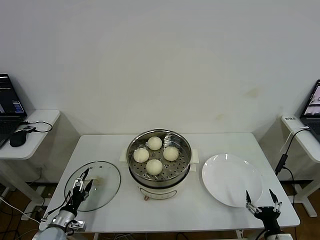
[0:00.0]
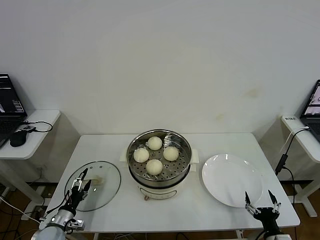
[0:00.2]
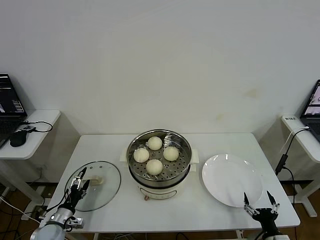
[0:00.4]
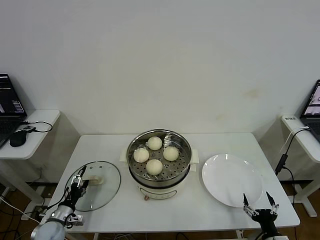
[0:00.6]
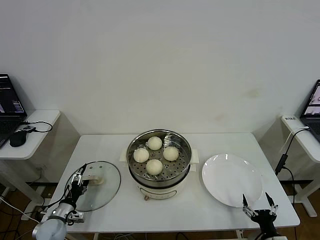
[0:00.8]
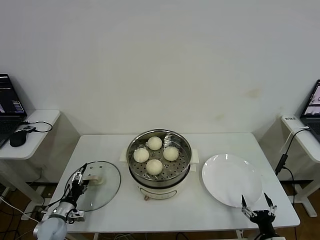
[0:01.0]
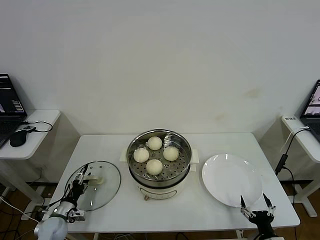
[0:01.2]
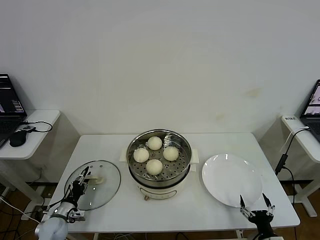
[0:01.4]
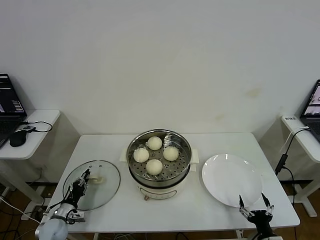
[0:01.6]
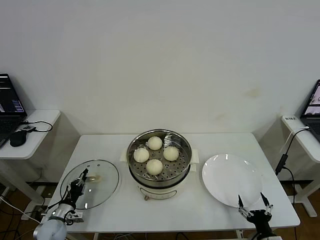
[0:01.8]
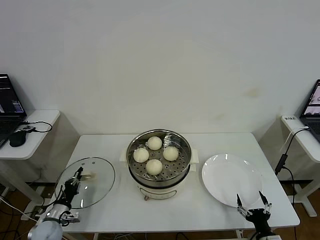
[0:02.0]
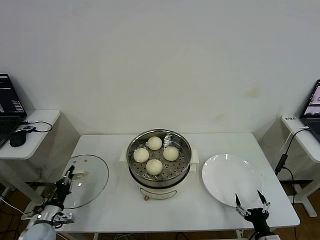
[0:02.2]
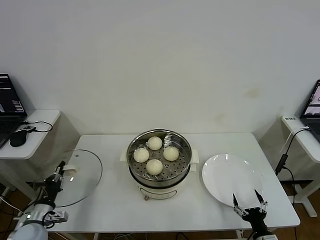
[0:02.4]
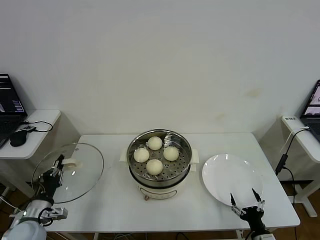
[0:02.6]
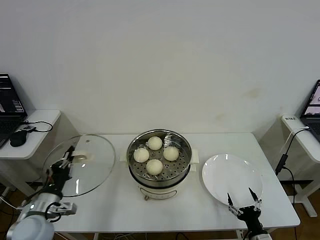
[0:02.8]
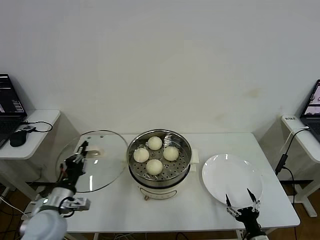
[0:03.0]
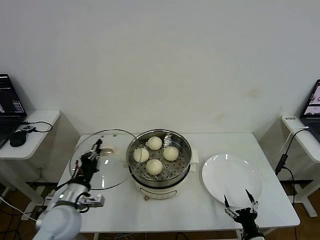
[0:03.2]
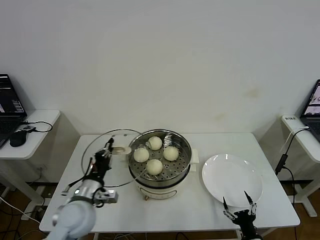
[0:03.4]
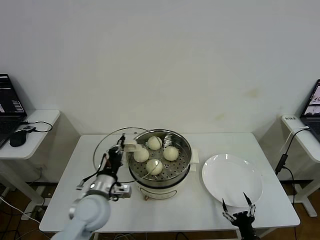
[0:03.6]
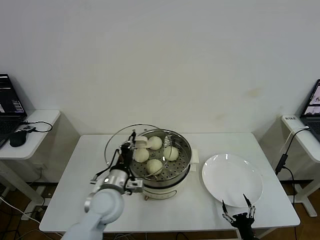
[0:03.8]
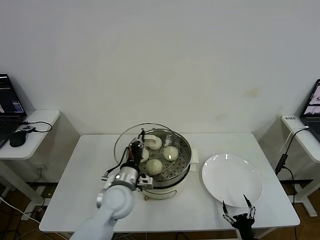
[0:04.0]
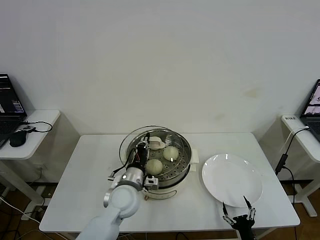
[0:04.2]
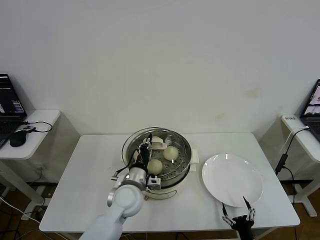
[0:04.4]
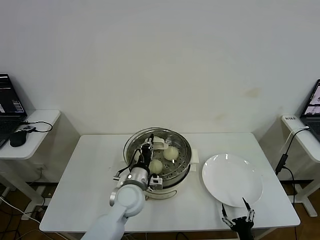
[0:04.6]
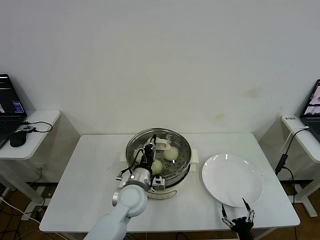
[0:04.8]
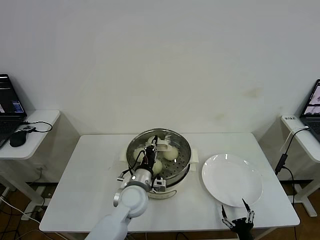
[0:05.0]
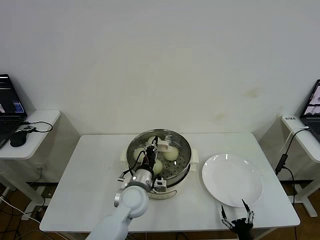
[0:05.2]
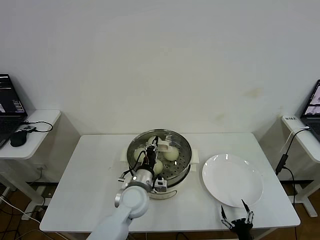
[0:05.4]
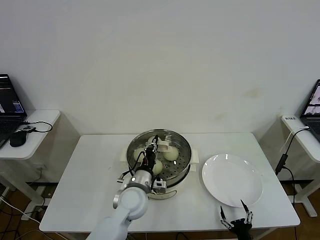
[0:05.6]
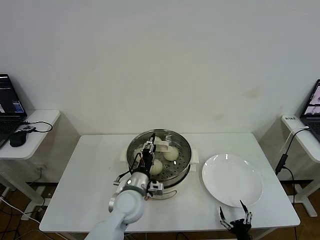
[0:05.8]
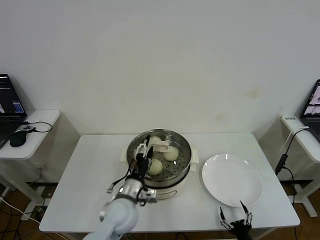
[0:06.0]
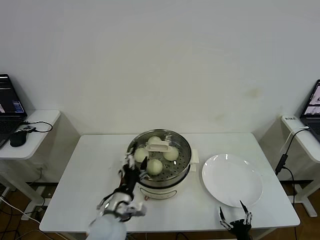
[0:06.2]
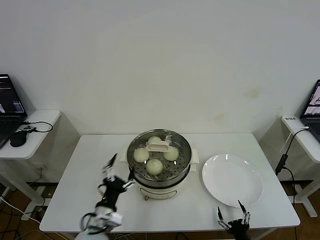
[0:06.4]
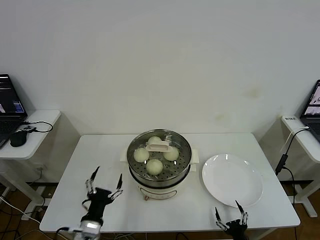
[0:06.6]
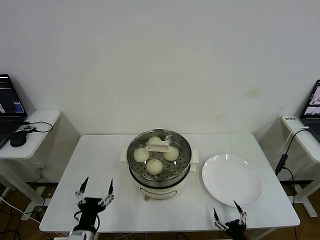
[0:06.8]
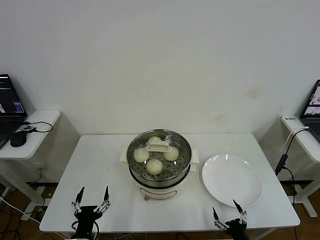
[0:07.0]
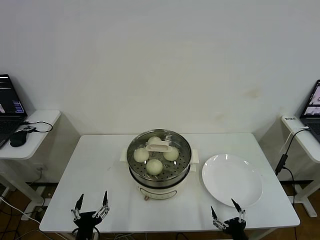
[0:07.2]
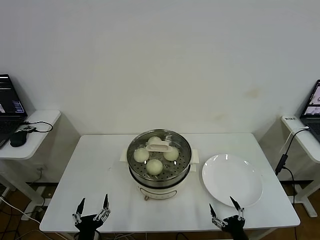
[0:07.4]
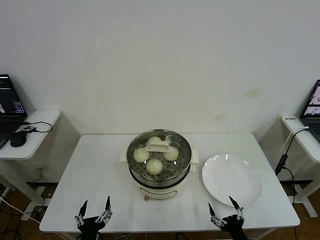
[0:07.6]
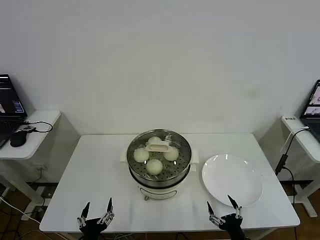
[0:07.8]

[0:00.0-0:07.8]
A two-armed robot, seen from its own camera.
Step, 0:02.0 to 0:05.8: Place the pot lid on the steamer with left gripper.
0:00.0 to 0:01.6: The left gripper closes up.
0:01.6 to 0:03.2: The left gripper moves upward and to the right, about 25 cm.
0:03.2 to 0:04.6: The left gripper moves to the right and forward, some 20 cm.
0:04.6 to 0:06.2: The left gripper moves backward, roughly 10 cm, and opens its fingers.
0:06.2 to 0:07.8: The right gripper shifts some 5 cm upward. The left gripper travels backward, to the left and downward by approximately 20 cm.

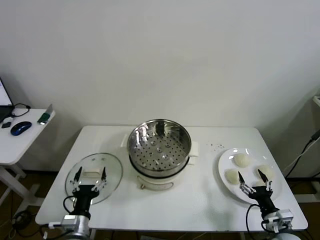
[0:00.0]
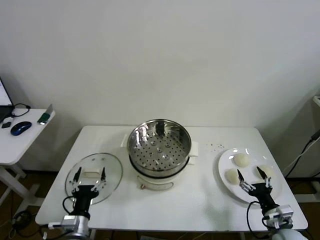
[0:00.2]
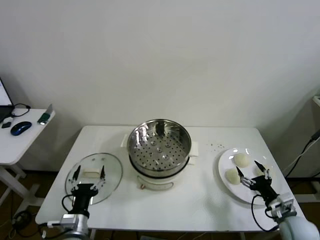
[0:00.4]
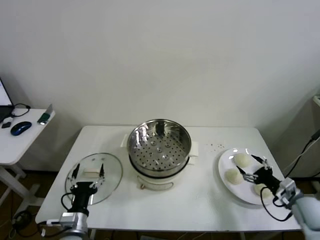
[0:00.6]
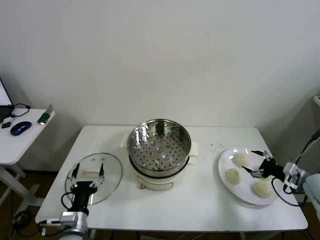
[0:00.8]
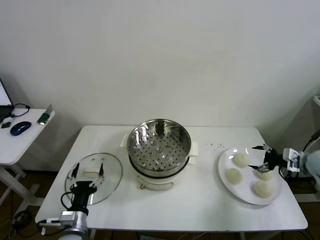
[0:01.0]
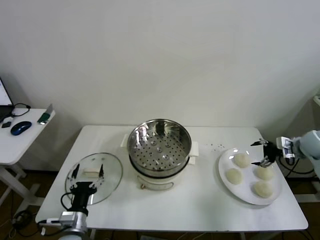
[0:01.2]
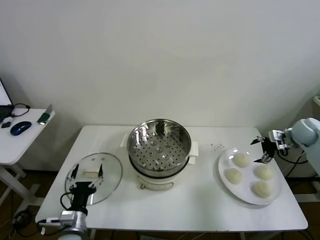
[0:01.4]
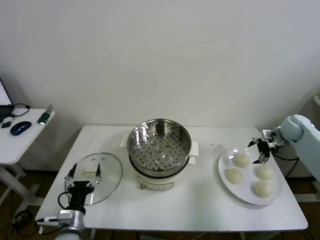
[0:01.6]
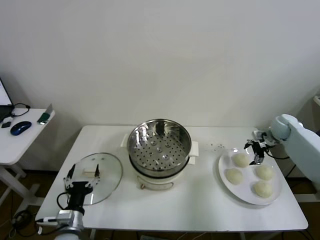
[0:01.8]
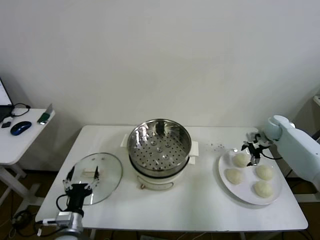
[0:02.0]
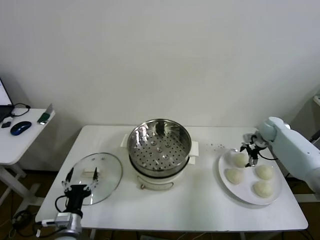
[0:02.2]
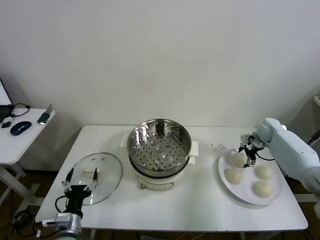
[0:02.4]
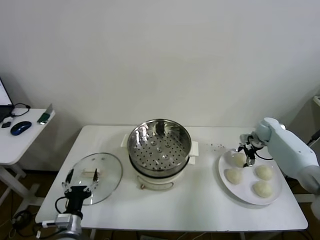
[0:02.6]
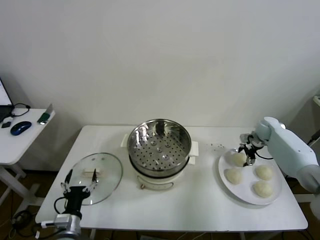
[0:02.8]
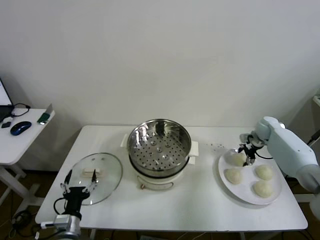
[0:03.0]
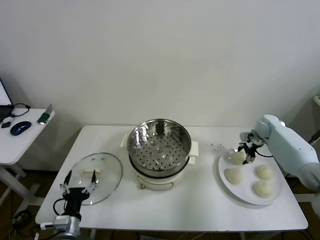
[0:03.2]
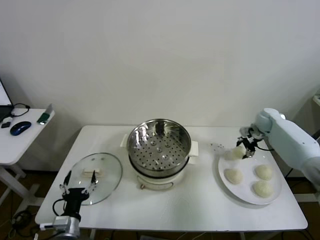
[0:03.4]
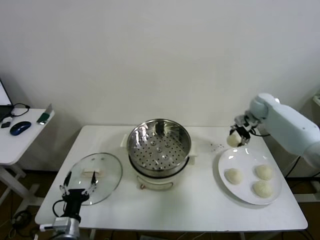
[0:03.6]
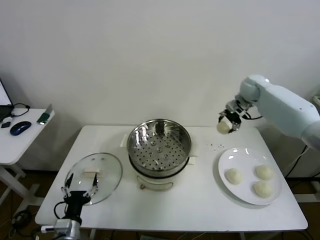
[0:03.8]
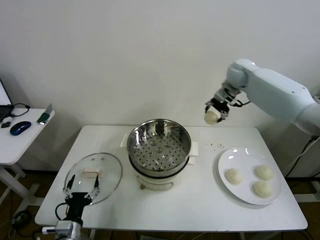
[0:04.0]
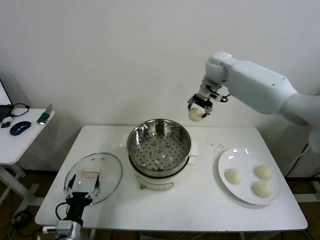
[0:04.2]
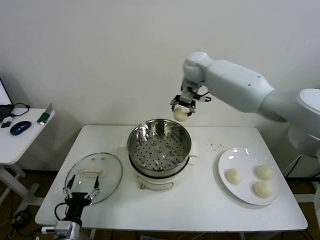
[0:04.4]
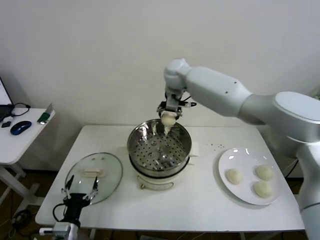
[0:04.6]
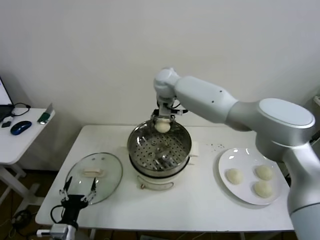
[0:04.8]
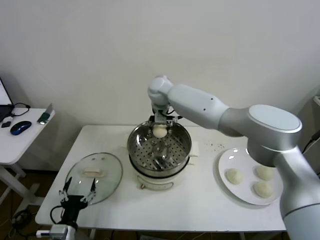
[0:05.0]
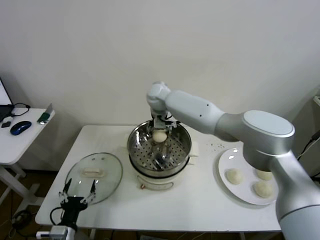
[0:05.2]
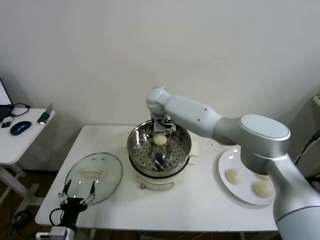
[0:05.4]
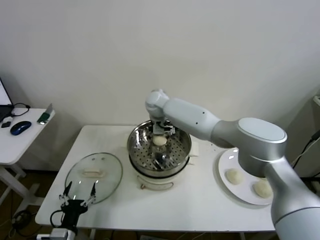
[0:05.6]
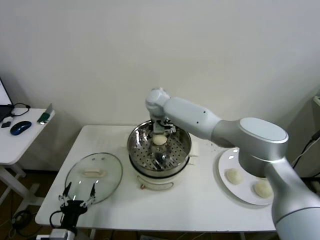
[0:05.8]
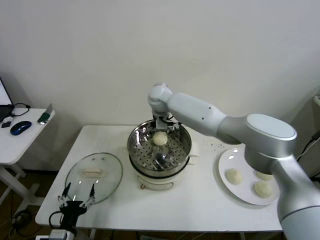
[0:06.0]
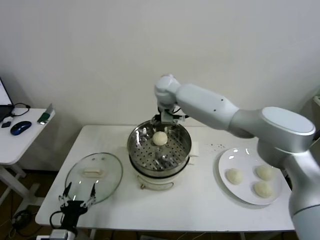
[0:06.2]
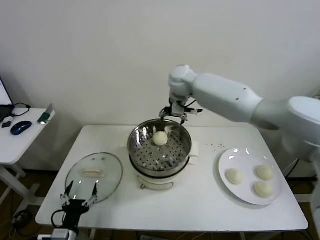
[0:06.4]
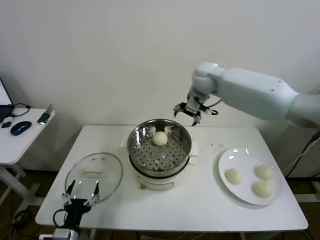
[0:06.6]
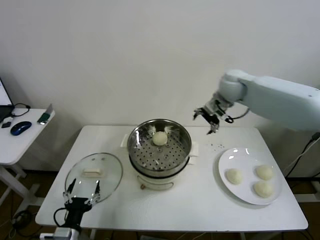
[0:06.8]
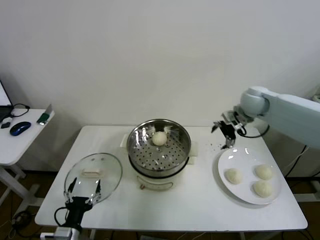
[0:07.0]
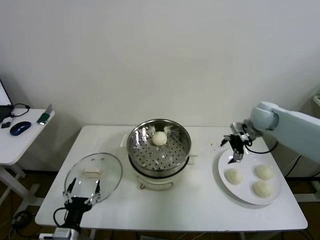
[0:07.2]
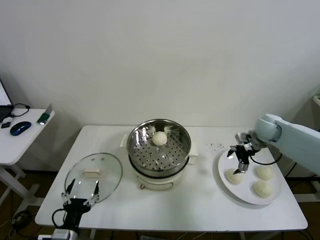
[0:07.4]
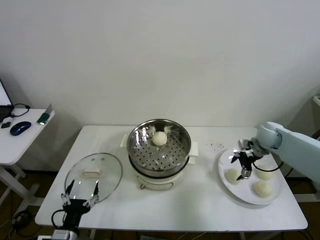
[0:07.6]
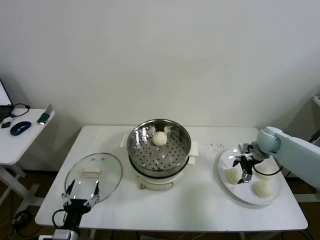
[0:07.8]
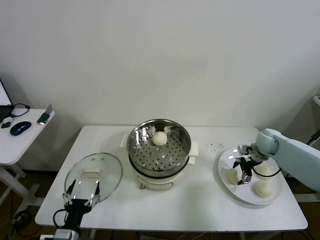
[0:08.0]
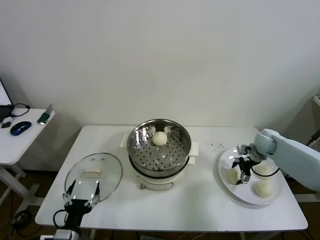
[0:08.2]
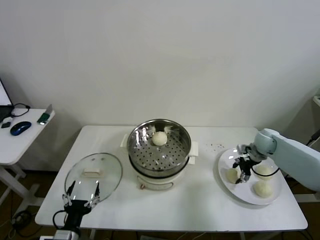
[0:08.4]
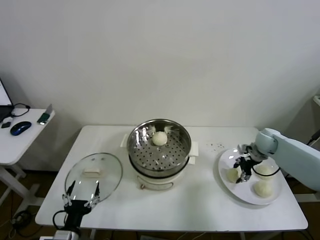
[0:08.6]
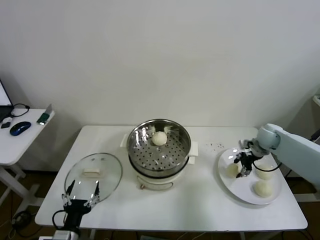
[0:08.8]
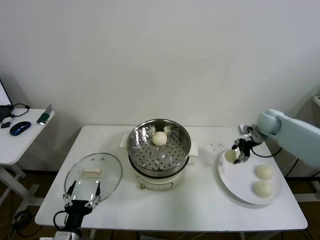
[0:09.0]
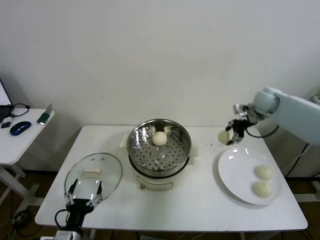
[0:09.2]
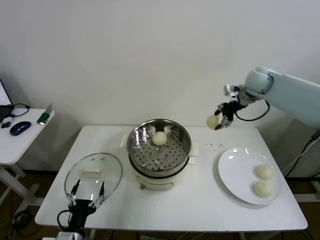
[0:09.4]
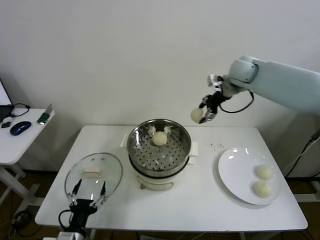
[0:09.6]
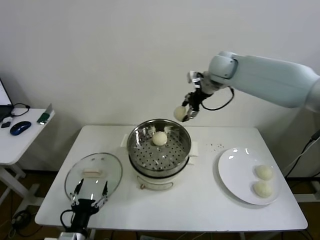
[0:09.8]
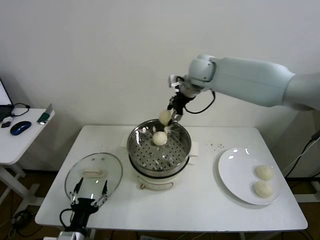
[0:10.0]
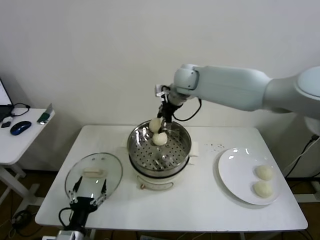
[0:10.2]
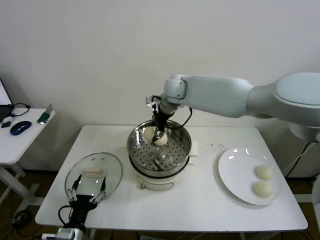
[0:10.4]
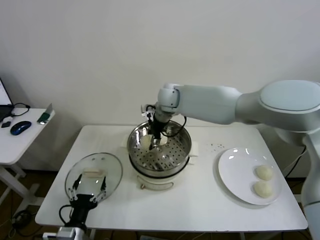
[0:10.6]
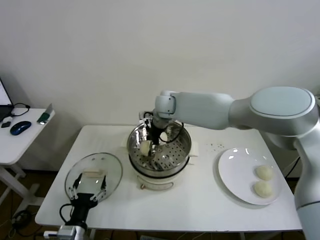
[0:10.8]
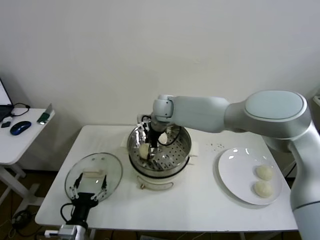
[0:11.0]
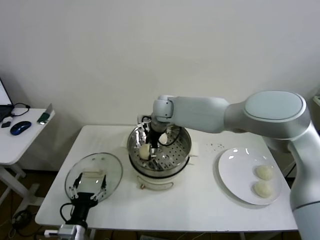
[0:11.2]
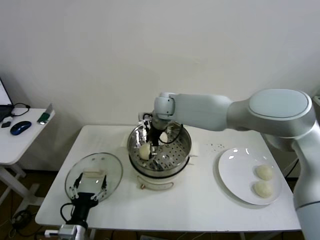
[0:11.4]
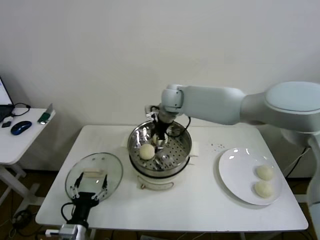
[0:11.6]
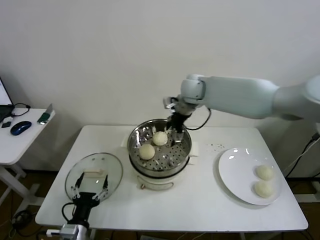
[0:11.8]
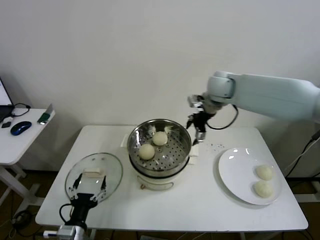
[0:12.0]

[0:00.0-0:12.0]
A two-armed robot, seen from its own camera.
Step, 0:00.0 to 0:03.0: Grasp the baozi in the plate with right gripper.
Step, 0:03.2 to 0:05.8: Place the baozi on the steamer with right gripper.
Step, 0:06.0 to 0:08.4: Grasp the baozi in the plate with right gripper.
Step, 0:08.6 to 0:11.2: Place the baozi on the steamer with right gripper.
0:01.6 to 0:03.0: The right gripper ends up roughly 5 cm from where it was, and closes its fingers.
0:03.0 to 0:04.4: The right gripper goes some 40 cm to the left and upward.
0:04.4 to 0:06.0: The right gripper is displaced downward and to the left by roughly 10 cm, and opens its fingers.
0:06.0 to 0:07.6: The right gripper heads to the right, covering approximately 40 cm.
0:07.6 to 0:09.0: The right gripper moves upward and forward, approximately 10 cm, and closes its fingers.
0:09.0 to 0:10.4: The right gripper goes approximately 35 cm to the left.
0:10.4 to 0:12.0: The right gripper goes roughly 20 cm to the right, and opens.

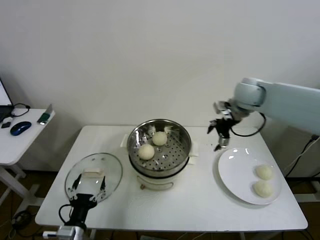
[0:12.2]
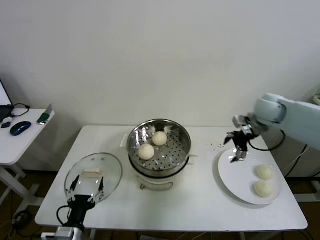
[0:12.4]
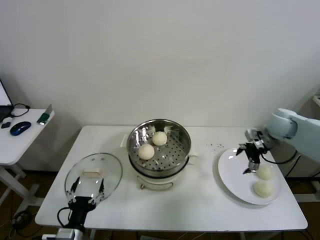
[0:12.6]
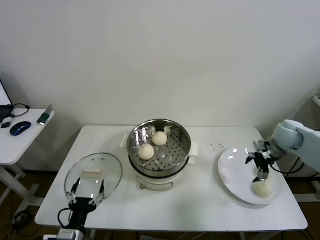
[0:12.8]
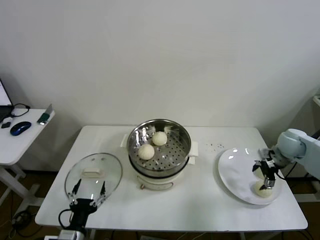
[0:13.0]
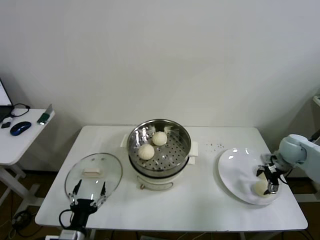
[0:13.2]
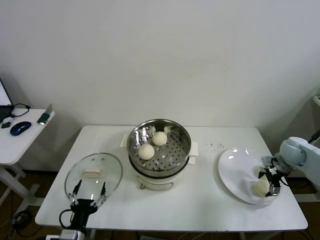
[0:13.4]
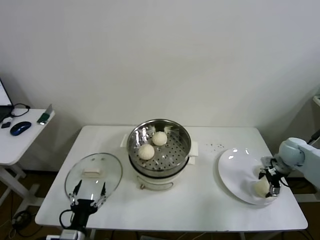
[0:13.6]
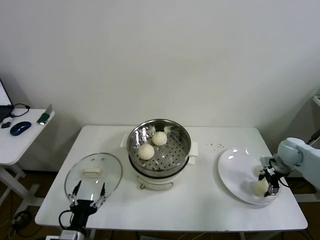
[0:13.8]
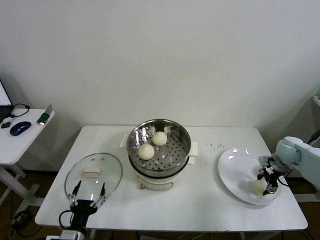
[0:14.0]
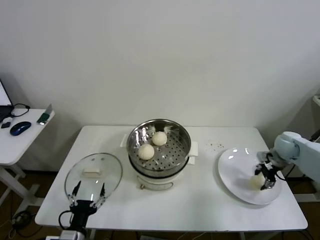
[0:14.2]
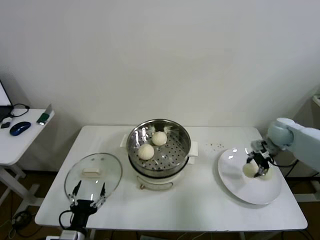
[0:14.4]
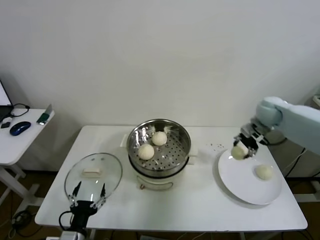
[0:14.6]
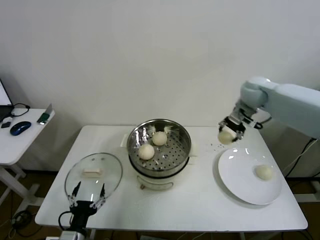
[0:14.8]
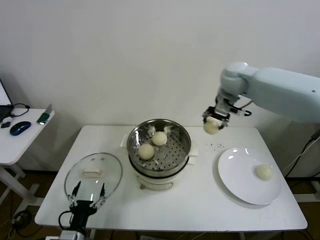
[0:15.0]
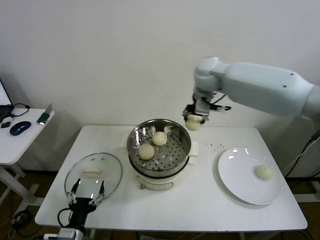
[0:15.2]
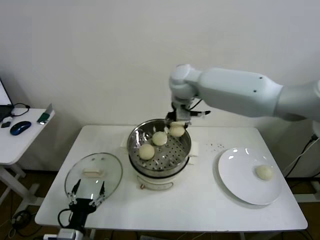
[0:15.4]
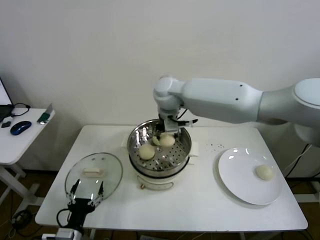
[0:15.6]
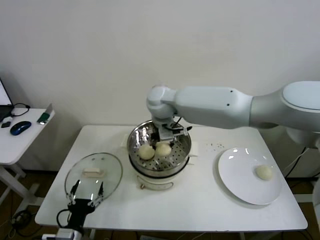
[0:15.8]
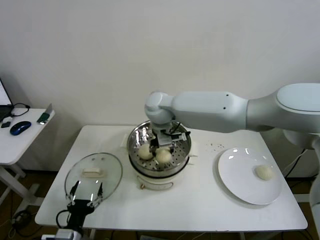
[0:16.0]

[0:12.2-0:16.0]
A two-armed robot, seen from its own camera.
Step, 0:12.2 to 0:13.8: Grasp the baozi in the plate with right gripper.
0:12.2 to 0:13.4: The right gripper shifts about 25 cm downward, to the right and backward.
0:13.4 to 0:14.8: The right gripper moves upward, to the left and forward, roughly 30 cm, and closes its fingers.
0:14.8 to 0:16.0: The right gripper shifts some 30 cm to the left.
